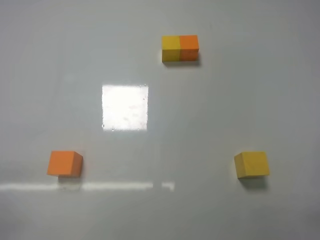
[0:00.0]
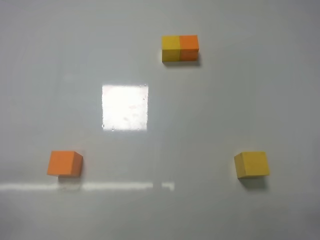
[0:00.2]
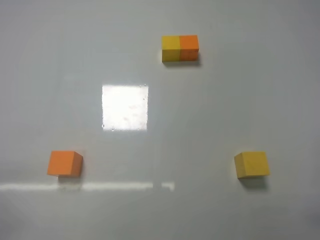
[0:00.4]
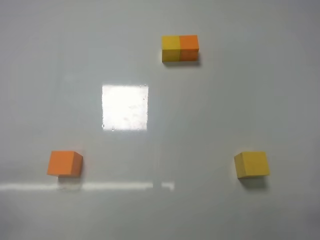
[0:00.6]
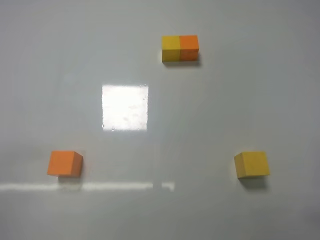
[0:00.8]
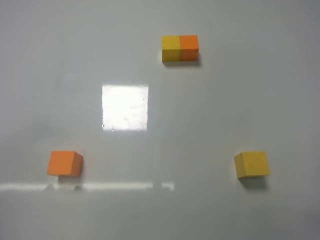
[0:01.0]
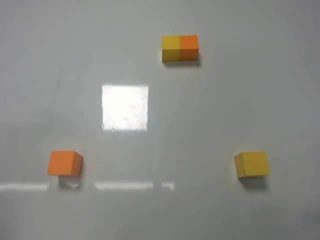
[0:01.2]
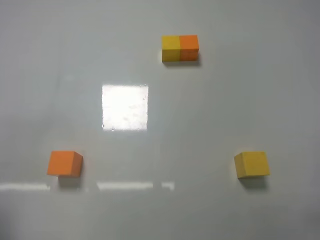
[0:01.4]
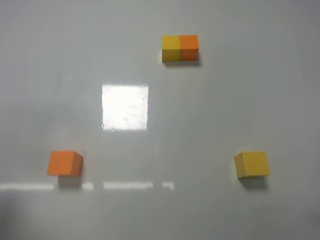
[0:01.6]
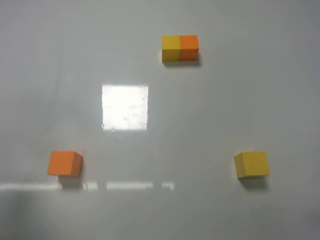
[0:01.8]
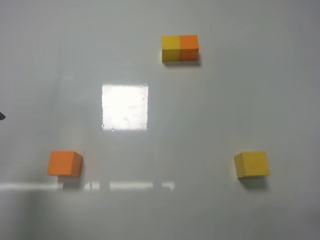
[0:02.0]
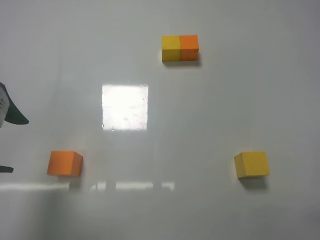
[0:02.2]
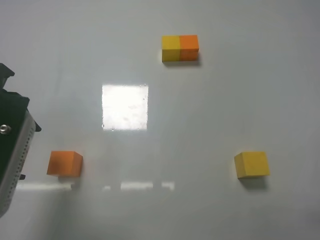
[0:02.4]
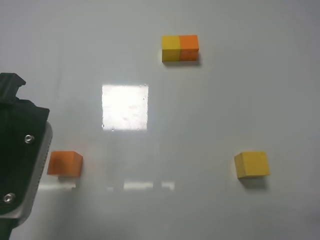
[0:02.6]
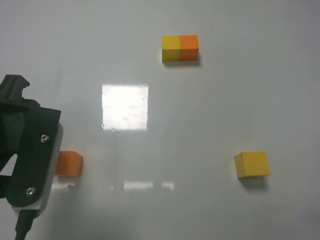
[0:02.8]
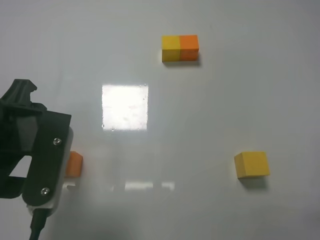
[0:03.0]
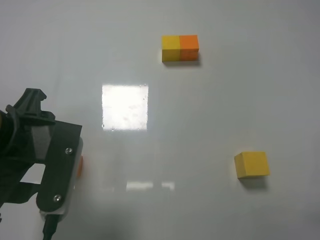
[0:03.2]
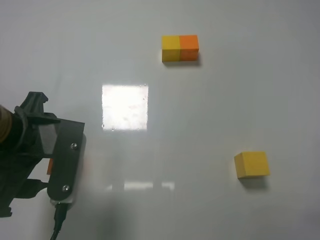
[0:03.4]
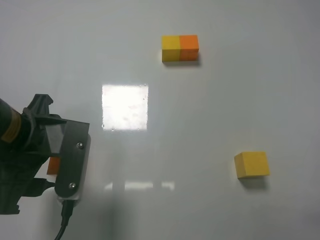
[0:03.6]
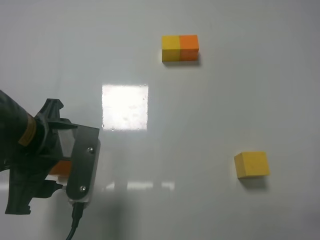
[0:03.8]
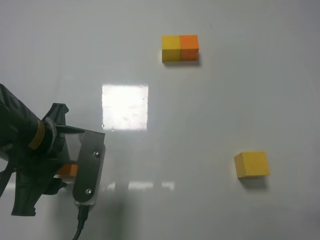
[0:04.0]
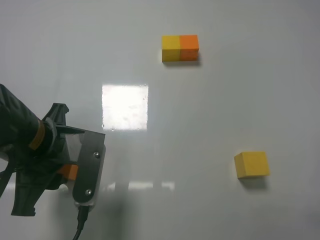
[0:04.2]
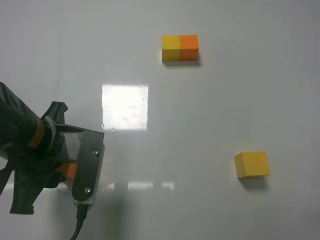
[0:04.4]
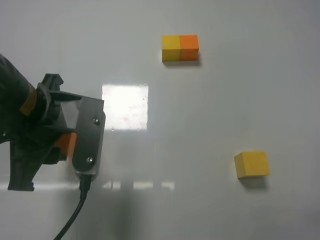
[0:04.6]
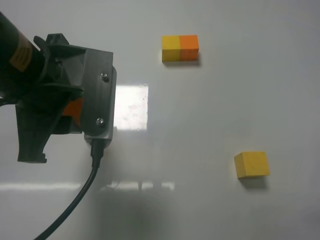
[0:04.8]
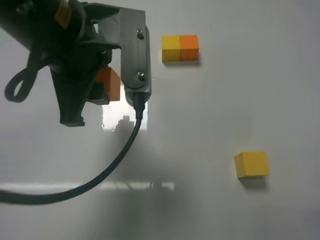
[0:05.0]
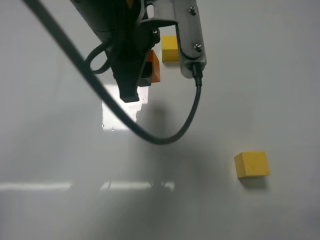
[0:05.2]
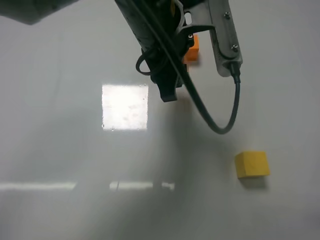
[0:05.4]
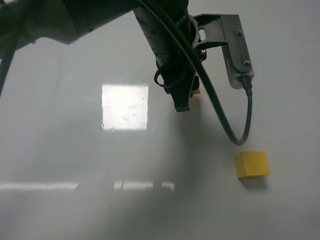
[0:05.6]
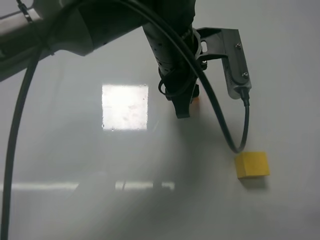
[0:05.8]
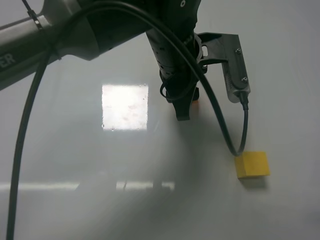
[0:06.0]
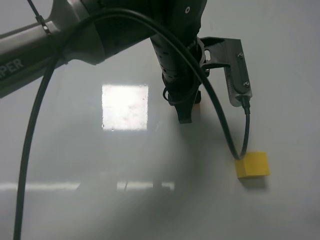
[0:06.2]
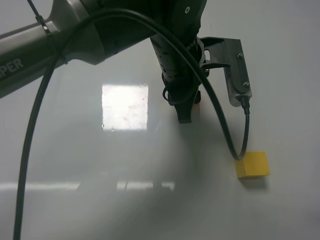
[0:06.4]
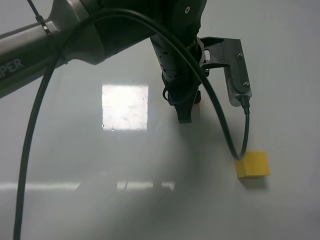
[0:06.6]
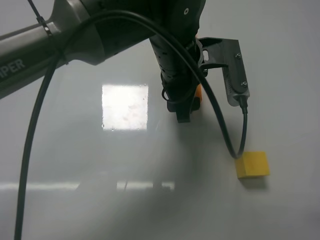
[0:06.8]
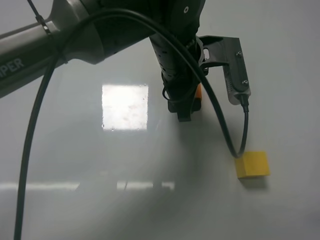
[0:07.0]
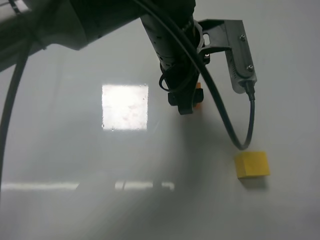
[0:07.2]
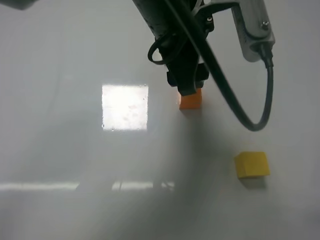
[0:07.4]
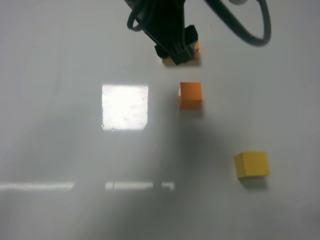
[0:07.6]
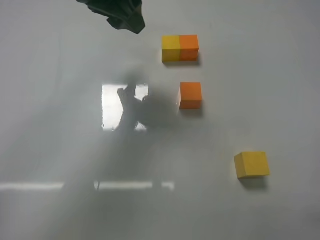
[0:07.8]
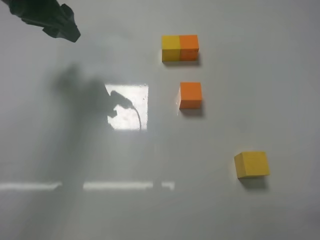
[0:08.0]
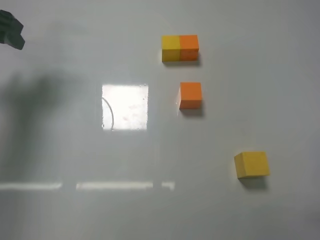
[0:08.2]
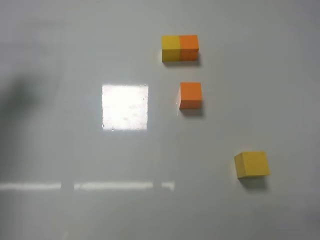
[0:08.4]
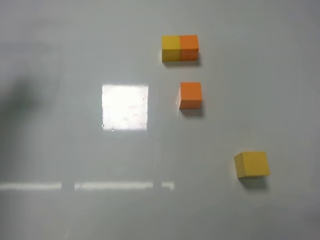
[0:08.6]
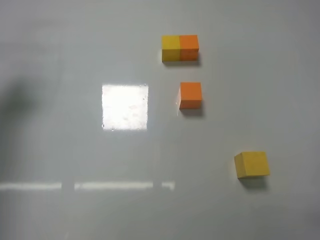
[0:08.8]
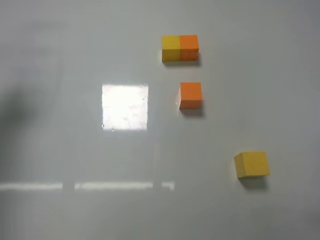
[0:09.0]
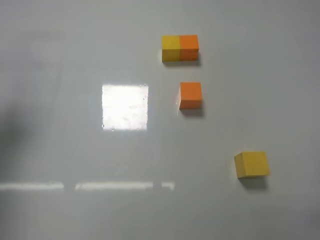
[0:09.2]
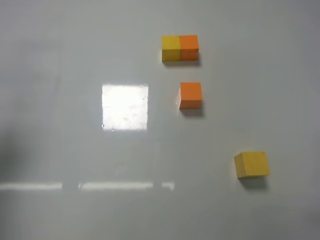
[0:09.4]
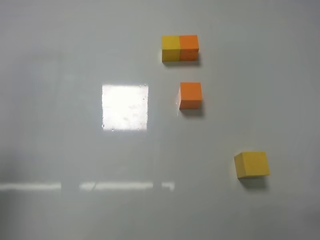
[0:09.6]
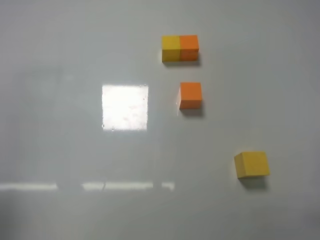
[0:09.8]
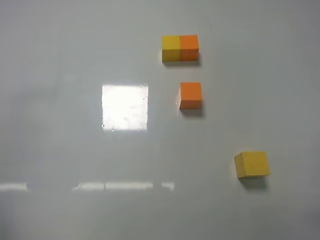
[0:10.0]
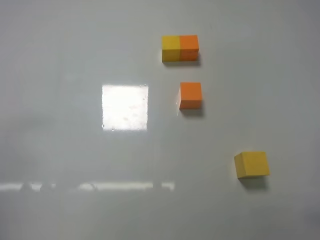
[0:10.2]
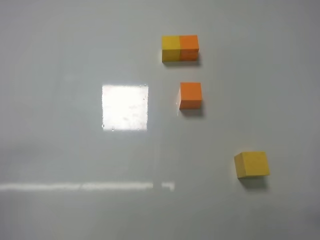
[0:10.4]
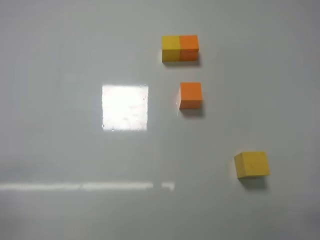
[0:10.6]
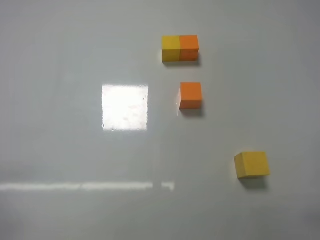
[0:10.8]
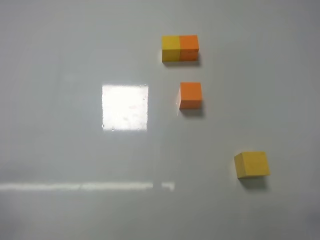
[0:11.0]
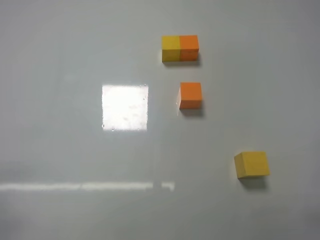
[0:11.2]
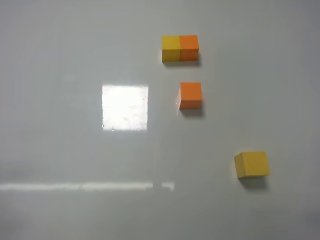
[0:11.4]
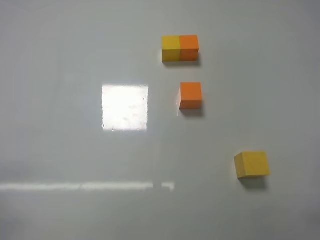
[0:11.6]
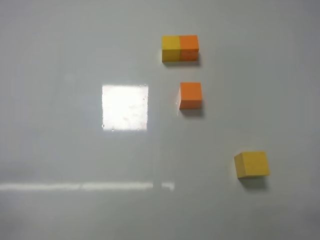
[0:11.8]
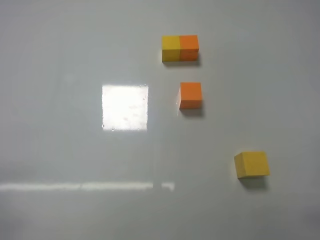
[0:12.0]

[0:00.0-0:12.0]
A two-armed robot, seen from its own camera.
Task of the whole recording: According to the building block template in front, assemble the scattered blocks together.
Step, 0:00.0 to 0:04.2: Grasp the orange block with left gripper.
Step, 0:04.4 to 0:07.0: Adjust the position of the cube with the left gripper.
0:00.0 to 0:01.6: The left gripper shifts approximately 15 cm upward and forward.
0:01.6 to 0:03.0: The left gripper heads to the right, covering about 10 cm.
0:03.0 to 0:04.4: The left gripper changes place by some 5 cm, and closes its fingers.
0:04.4 to 0:06.0: The left gripper shifts some 20 cm to the right and forward.
0:06.0 to 0:07.6: The left gripper shifts roughly 10 cm upward and to the left, and opens its fingers.
0:07.6 to 0:09.0: The left gripper travels to the left by some 30 cm, and closes its fingers.
0:09.0 to 0:10.4: The left gripper goes some 30 cm backward and downward.

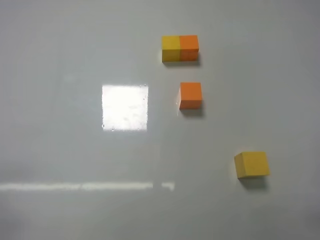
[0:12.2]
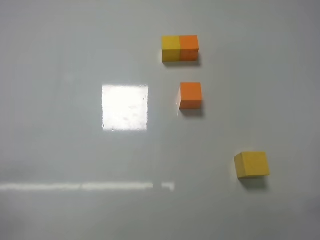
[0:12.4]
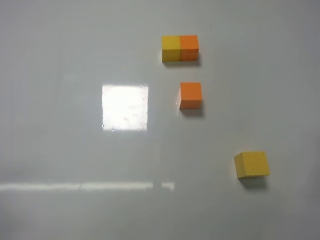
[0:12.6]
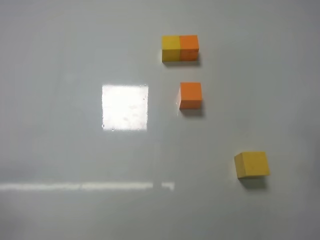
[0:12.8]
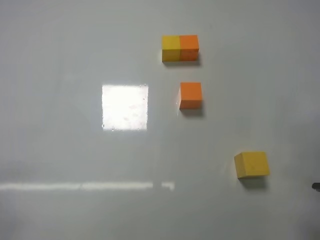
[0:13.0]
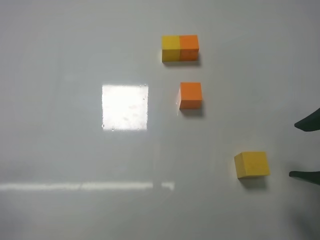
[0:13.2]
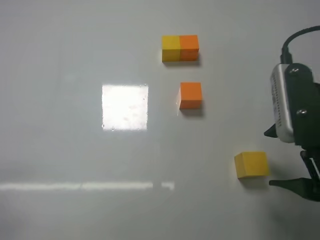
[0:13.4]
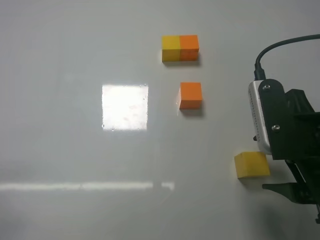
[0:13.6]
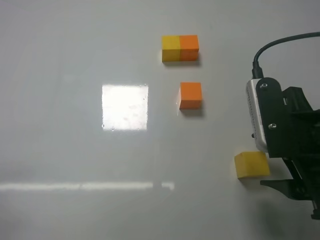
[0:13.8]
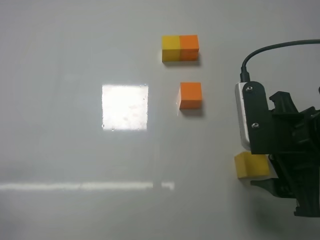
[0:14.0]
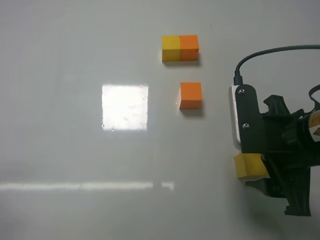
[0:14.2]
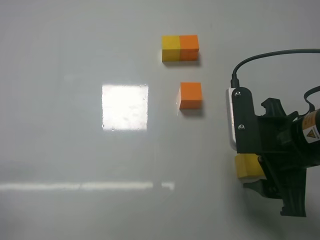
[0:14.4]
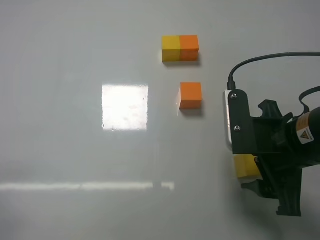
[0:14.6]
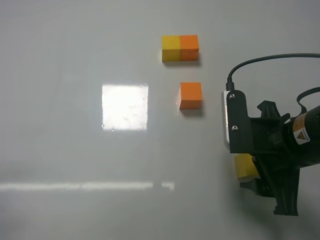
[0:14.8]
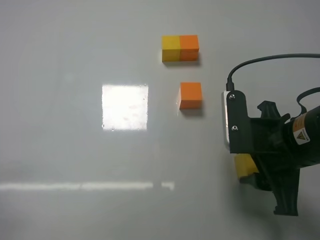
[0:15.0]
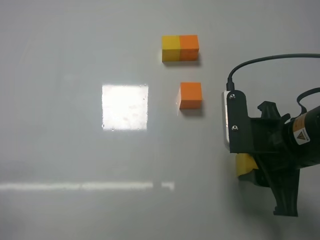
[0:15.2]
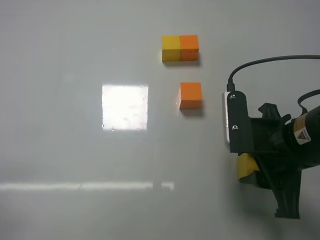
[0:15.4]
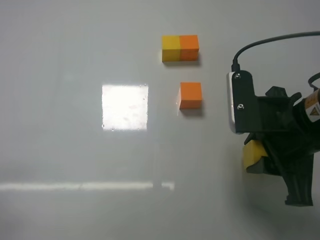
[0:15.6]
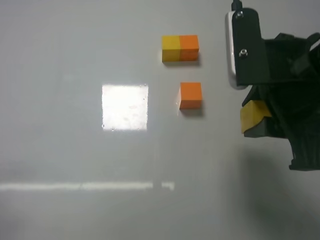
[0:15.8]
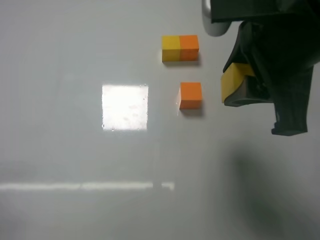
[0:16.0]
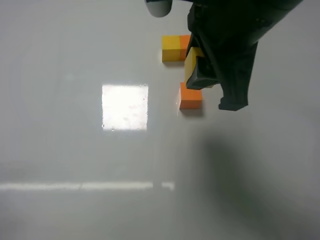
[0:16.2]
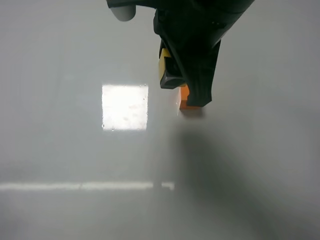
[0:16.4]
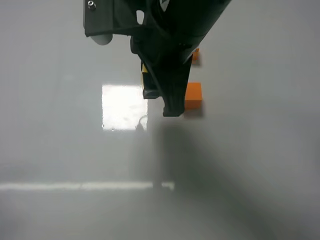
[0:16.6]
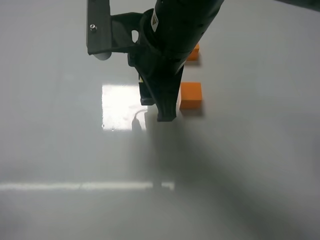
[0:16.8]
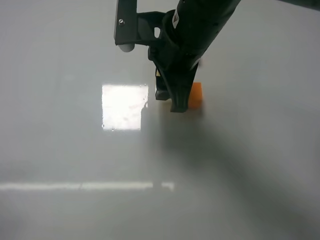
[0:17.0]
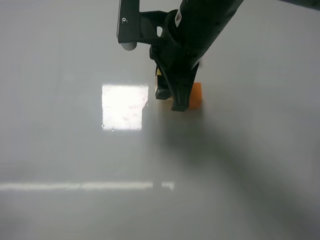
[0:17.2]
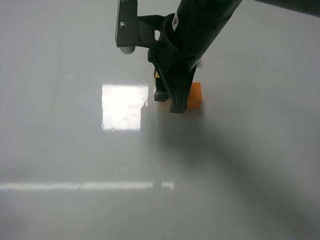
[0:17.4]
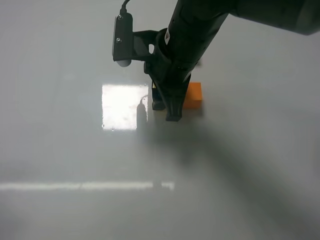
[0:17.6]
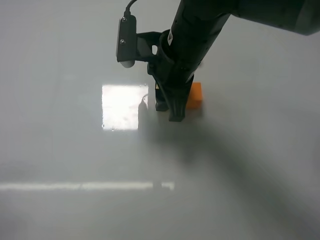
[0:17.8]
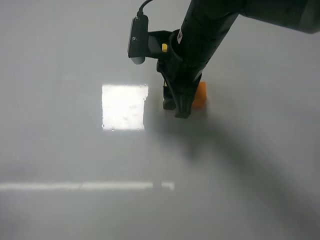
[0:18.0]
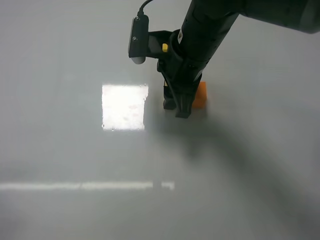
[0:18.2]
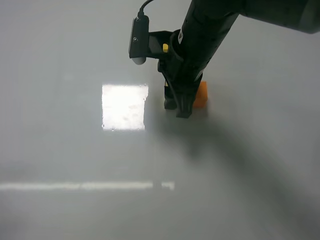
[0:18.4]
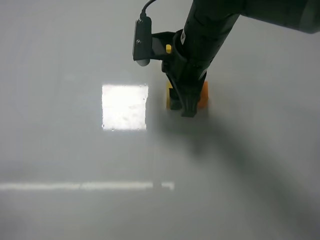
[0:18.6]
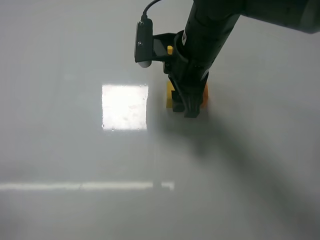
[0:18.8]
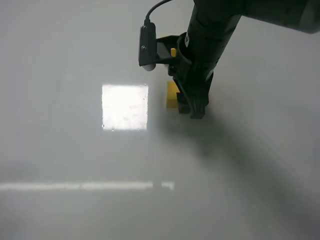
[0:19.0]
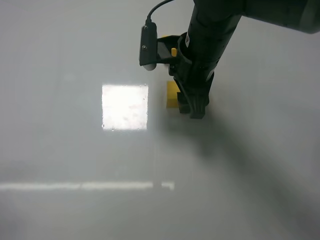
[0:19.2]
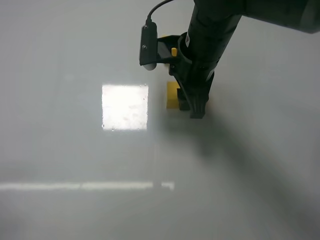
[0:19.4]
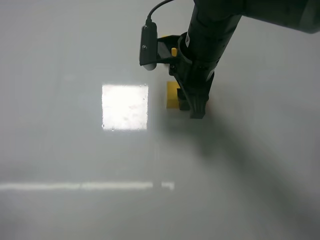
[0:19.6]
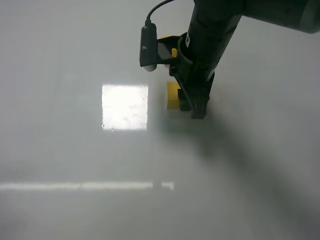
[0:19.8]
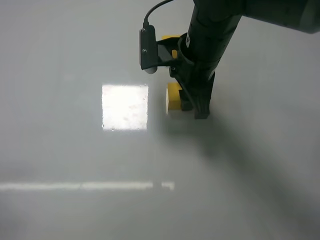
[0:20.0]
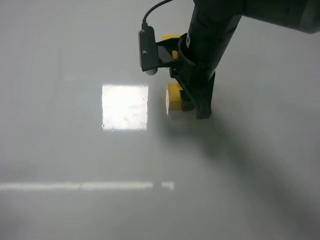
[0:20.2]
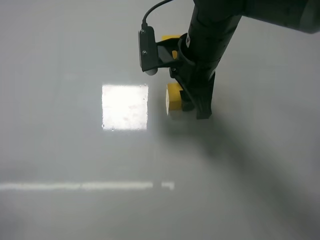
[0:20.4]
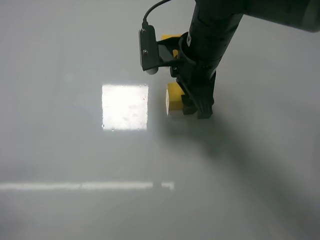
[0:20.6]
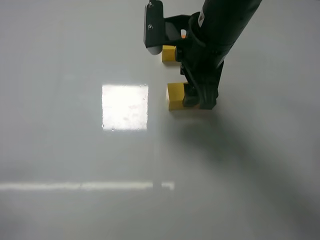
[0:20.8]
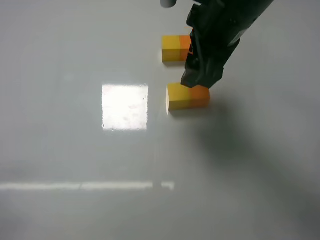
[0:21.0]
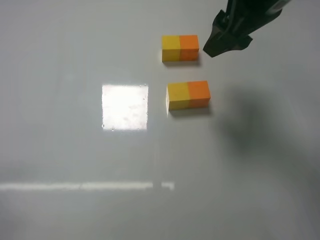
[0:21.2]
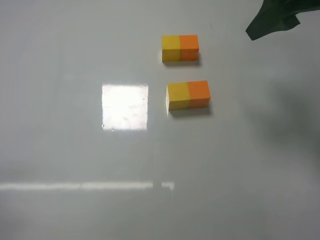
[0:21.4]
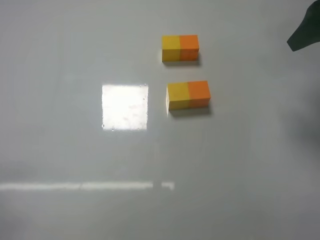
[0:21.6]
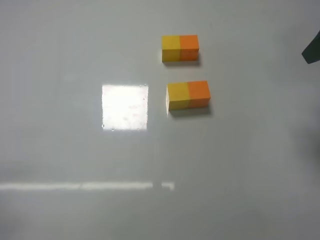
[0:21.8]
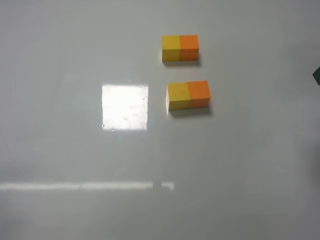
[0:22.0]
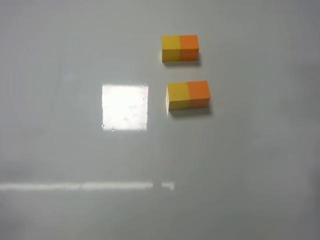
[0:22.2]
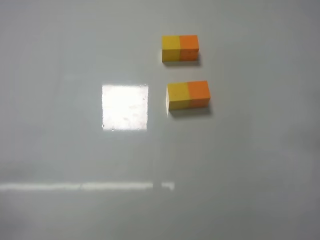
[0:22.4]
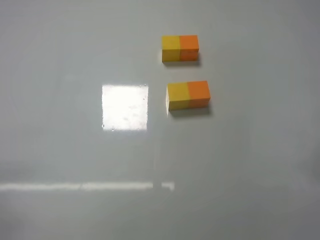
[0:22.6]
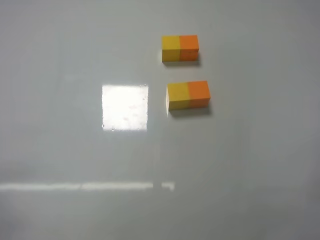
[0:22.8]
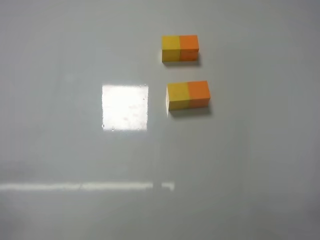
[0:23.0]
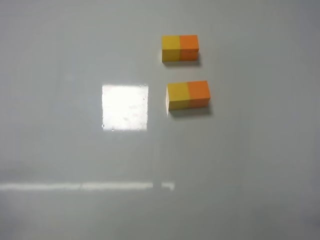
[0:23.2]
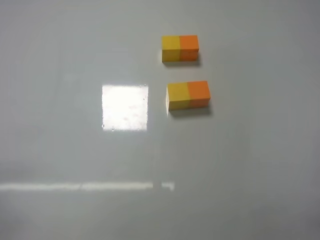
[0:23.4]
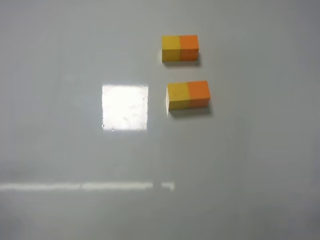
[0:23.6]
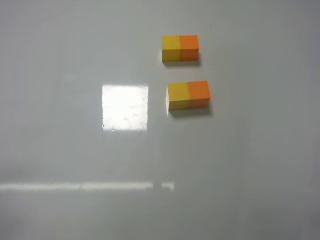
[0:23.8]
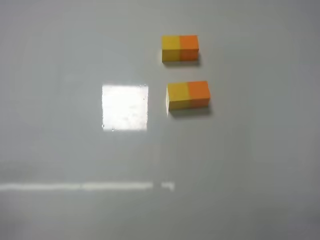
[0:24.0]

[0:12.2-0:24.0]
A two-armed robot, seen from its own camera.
Task of the whole recording: According to the building block template in front, assemble the scattered blocks together.
Step, 0:12.2 to 0:15.0: Grasp the yellow block with right gripper.
Step, 0:15.2 to 0:18.8: Put the yellow cube on the left of the orange cube with the right gripper.
Step, 0:19.0 to 0:20.6: Put the yellow cube and orange cube in the center of the table with the right gripper.
0:12.2 to 0:13.6: The right gripper goes some 20 cm forward and to the left, and opens its fingers.
0:13.6 to 0:15.2: The right gripper closes.
0:15.2 to 0:16.6: The right gripper is displaced to the left and upward by about 20 cm.
0:16.6 to 0:18.2: The right gripper shifts about 10 cm forward.
0:18.2 to 0:19.6: The right gripper opens, then closes once more.
0:19.6 to 0:21.0: The right gripper travels upward by roughly 5 cm, and opens up.
0:21.0 to 0:22.6: The right gripper goes roughly 30 cm to the right, backward and downward.
